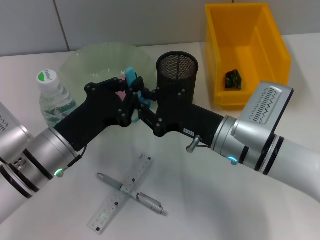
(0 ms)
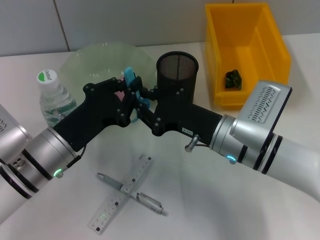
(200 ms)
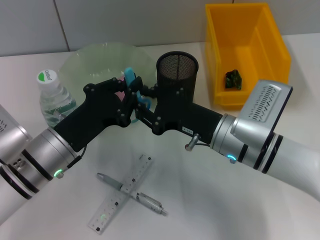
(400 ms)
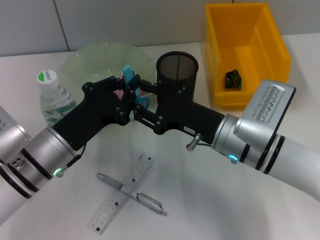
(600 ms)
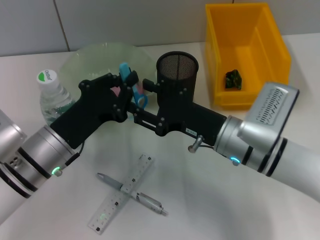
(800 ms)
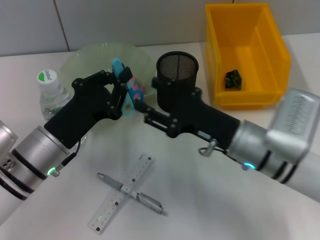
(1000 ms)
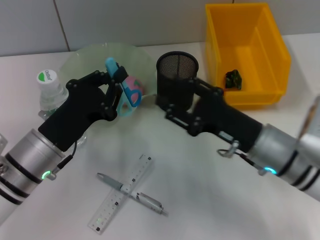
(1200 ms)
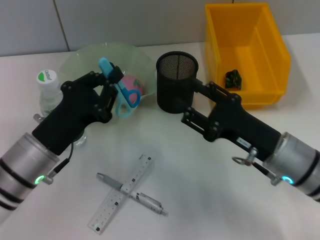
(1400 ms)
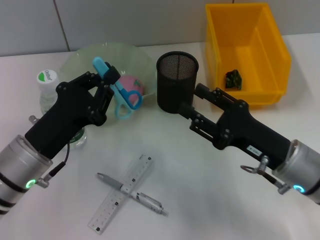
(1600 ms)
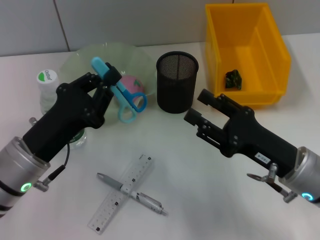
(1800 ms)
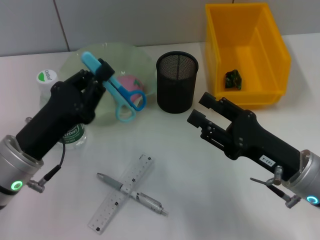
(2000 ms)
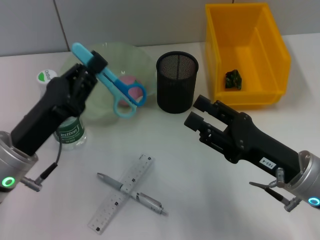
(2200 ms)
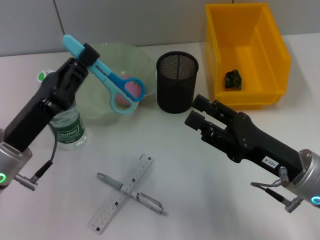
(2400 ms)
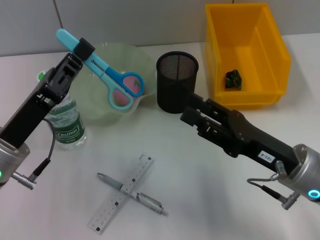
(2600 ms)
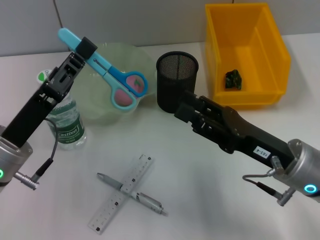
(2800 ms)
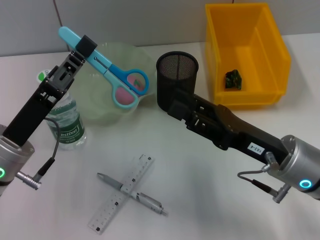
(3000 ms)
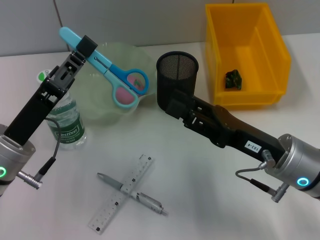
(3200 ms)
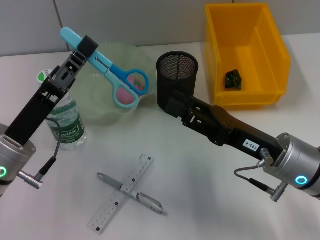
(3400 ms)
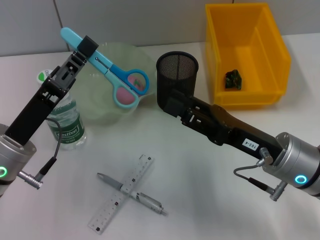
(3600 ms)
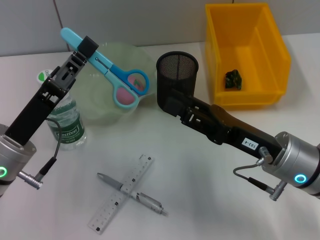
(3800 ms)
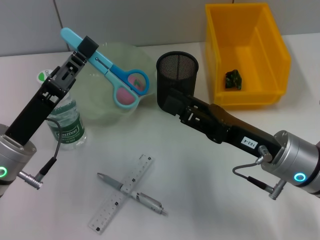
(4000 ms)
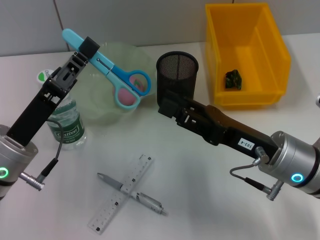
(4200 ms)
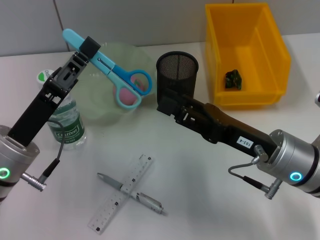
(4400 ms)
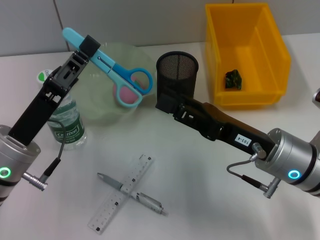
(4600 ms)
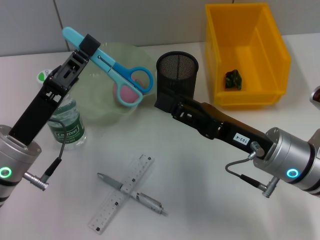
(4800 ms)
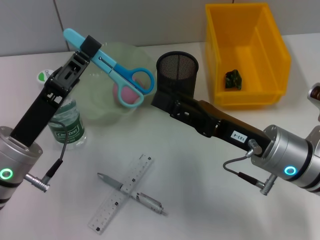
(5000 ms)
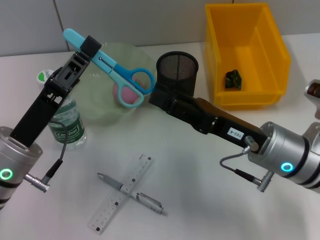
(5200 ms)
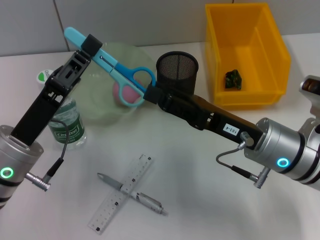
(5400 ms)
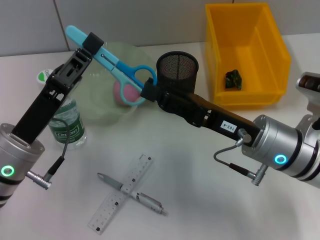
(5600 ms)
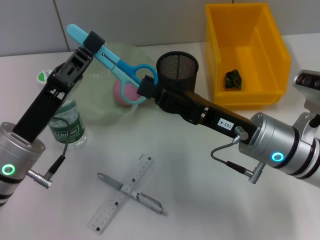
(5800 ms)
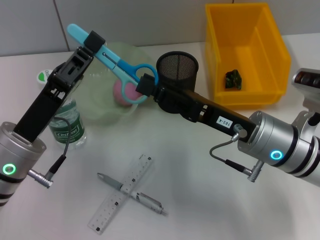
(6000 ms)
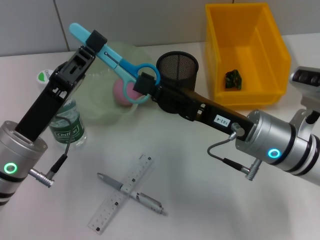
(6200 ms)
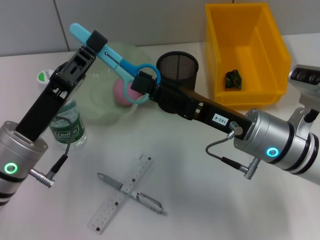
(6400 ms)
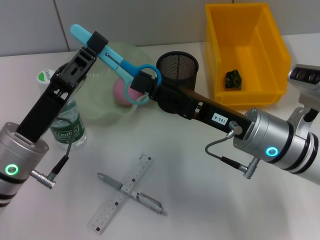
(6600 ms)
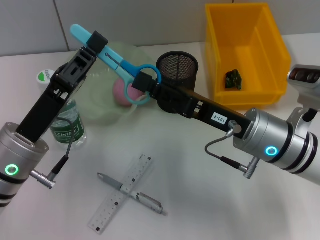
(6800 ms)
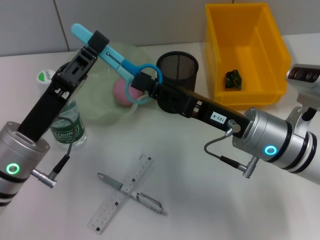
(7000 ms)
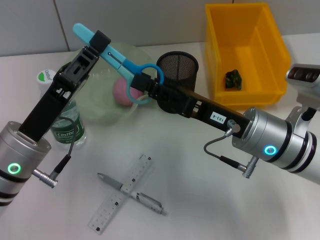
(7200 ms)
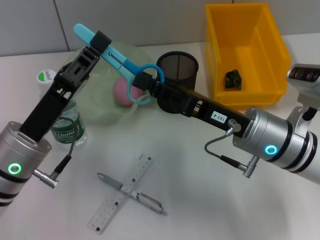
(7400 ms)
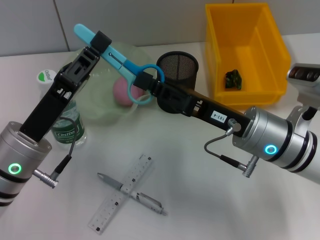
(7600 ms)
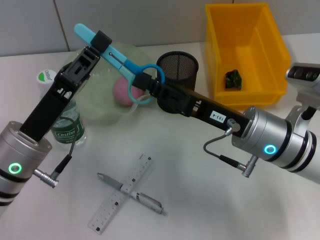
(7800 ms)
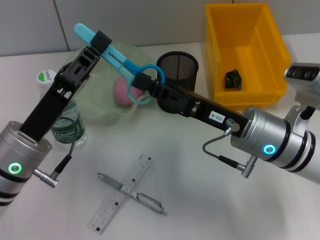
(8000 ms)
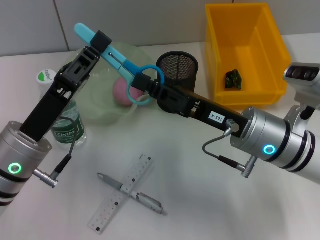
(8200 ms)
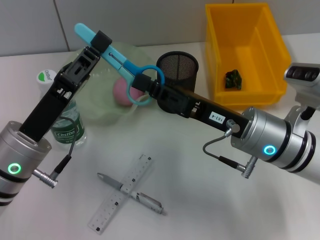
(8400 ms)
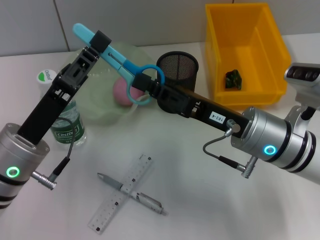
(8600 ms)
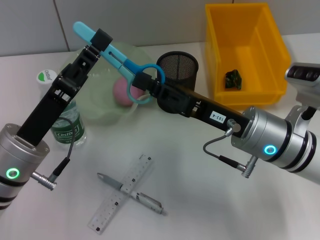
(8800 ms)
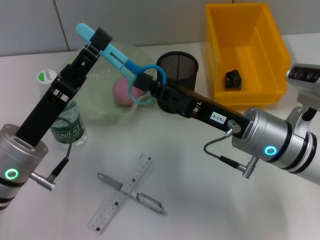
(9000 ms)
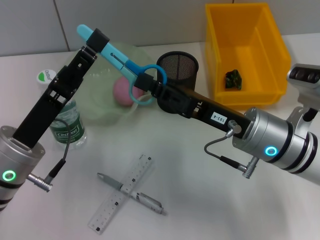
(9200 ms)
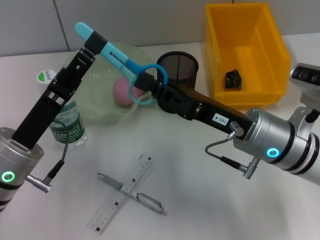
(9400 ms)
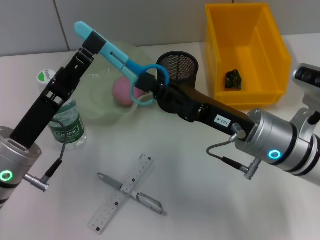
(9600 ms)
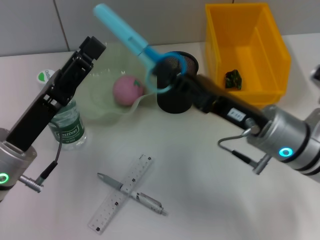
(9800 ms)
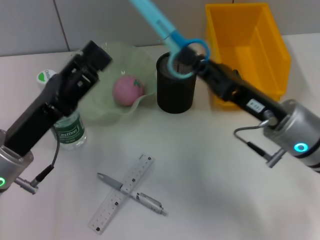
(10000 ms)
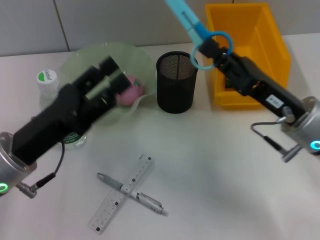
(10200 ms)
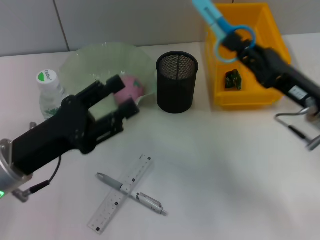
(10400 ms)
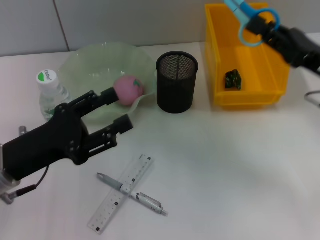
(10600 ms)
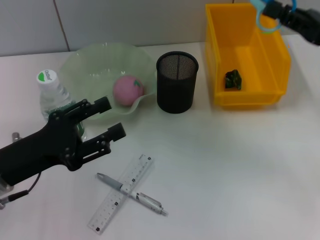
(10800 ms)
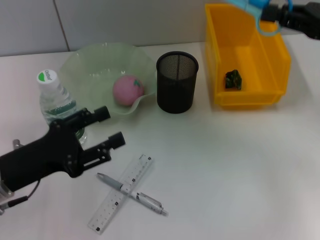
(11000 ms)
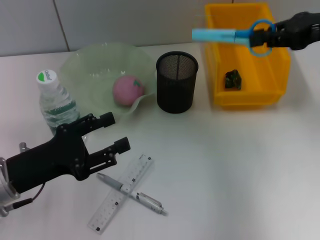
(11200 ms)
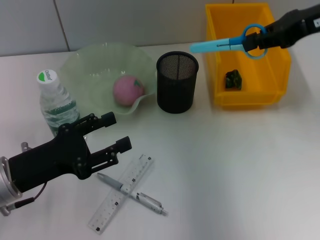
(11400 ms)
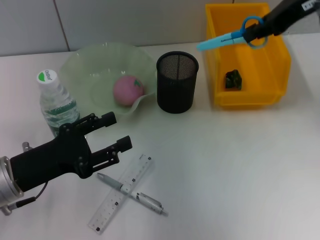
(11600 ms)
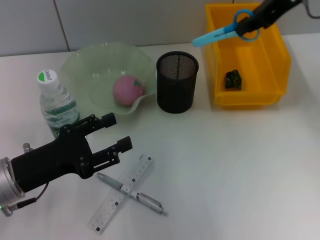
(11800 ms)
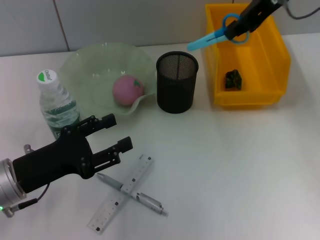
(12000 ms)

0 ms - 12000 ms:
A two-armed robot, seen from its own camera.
Step, 1000 ms - 9600 ms: Pass the blue scissors from the left hand to the right hand.
0 ms - 1600 ms: The right gripper moves to the right and backward, roughly 10 cm, and opens its fingers.
3000 ms - 4400 ms: Neither gripper changes place.
4400 ms - 6000 ms: The grippers make only small movements.
6000 ms - 7600 ms: The right gripper closes its fingers.
7600 ms - 9000 ms: There are only small adjustments of the grippers.
9000 ms - 10400 ms: The right gripper heads to the right, covering about 10 cm. Meanwhile the left gripper opens its fingers.
10400 ms - 12000 ms: The right gripper travels upward and forward by some 25 cm.

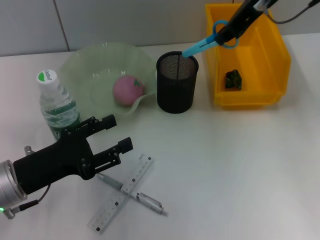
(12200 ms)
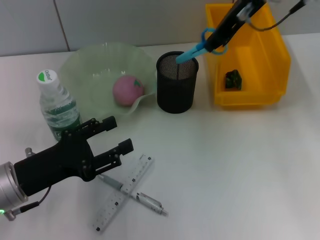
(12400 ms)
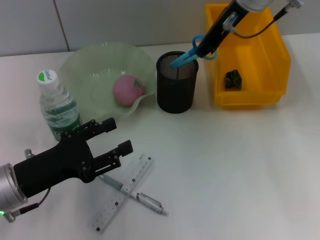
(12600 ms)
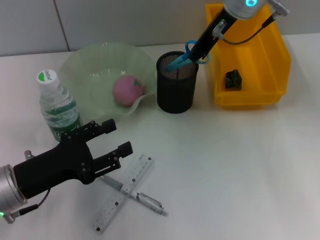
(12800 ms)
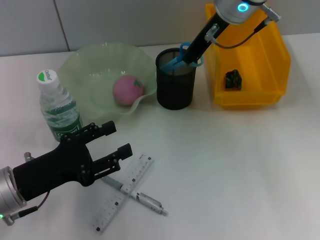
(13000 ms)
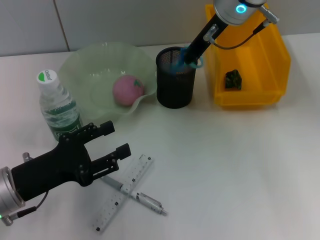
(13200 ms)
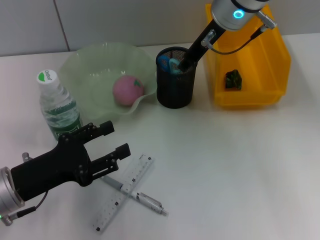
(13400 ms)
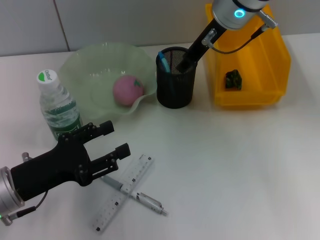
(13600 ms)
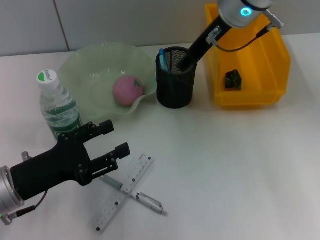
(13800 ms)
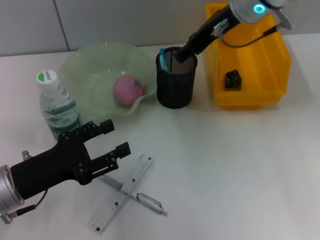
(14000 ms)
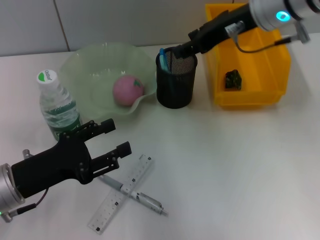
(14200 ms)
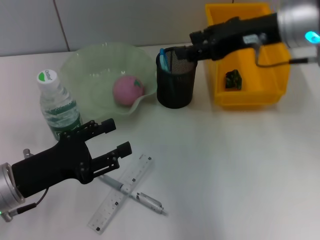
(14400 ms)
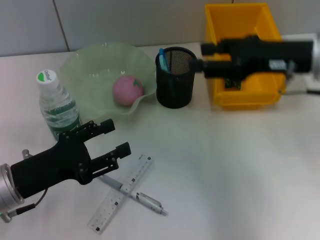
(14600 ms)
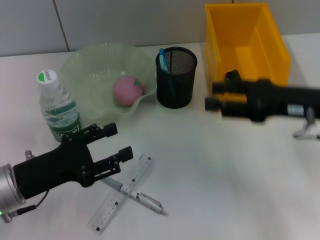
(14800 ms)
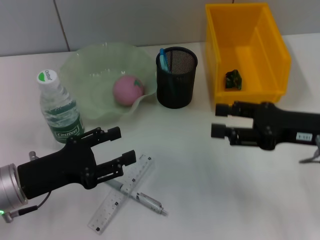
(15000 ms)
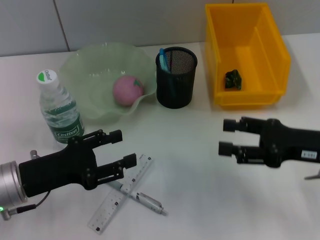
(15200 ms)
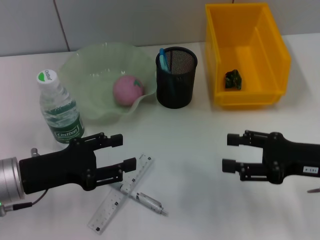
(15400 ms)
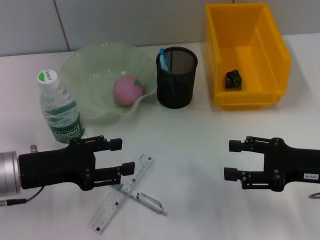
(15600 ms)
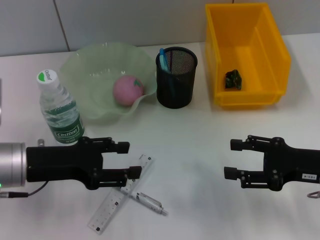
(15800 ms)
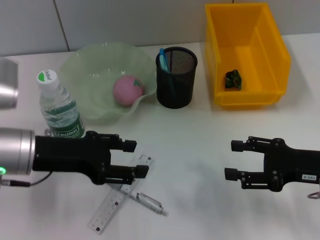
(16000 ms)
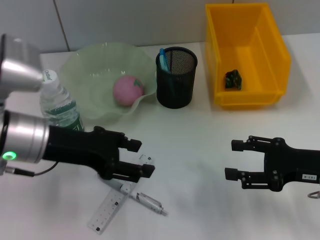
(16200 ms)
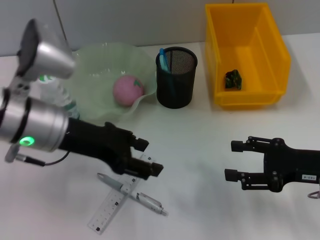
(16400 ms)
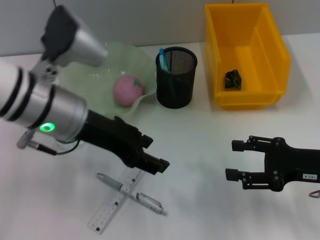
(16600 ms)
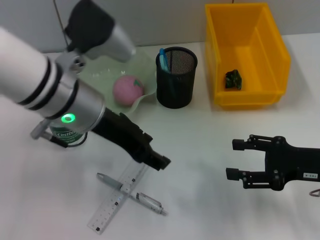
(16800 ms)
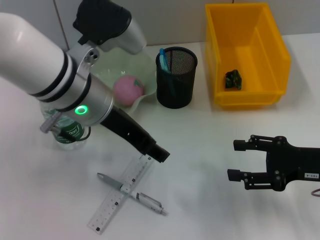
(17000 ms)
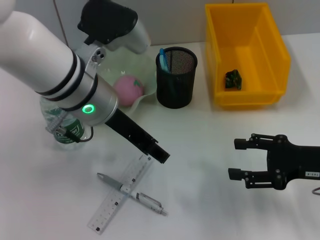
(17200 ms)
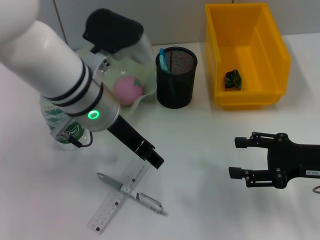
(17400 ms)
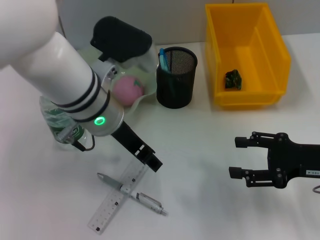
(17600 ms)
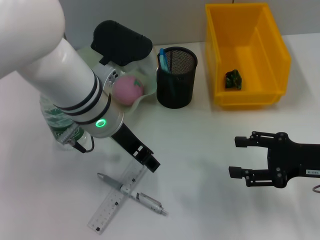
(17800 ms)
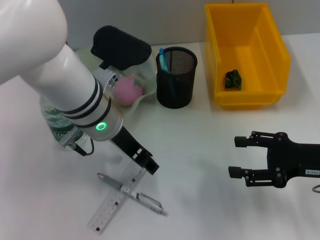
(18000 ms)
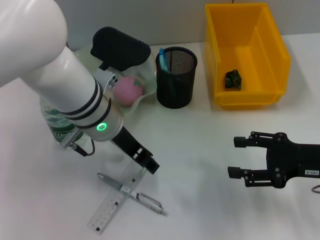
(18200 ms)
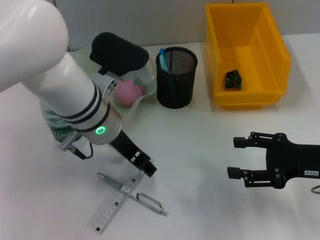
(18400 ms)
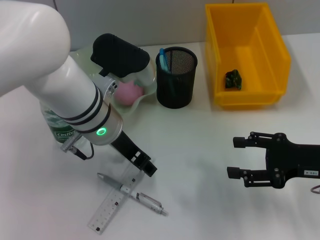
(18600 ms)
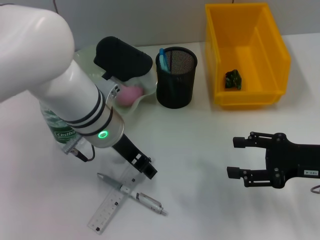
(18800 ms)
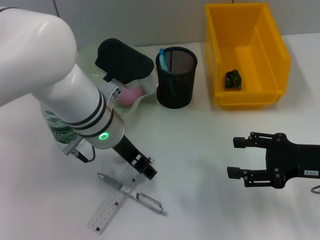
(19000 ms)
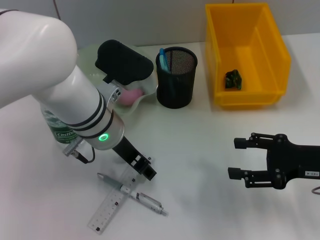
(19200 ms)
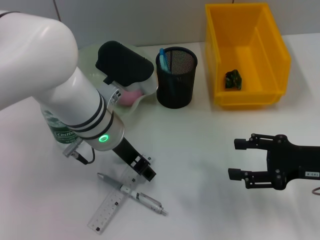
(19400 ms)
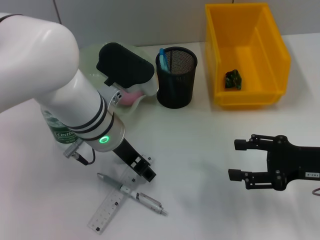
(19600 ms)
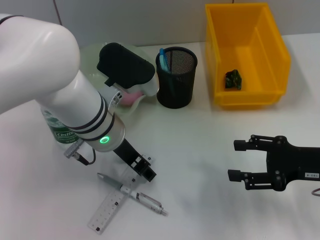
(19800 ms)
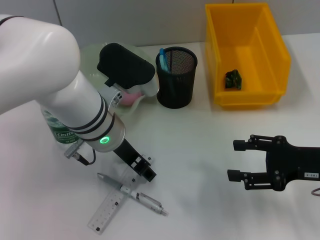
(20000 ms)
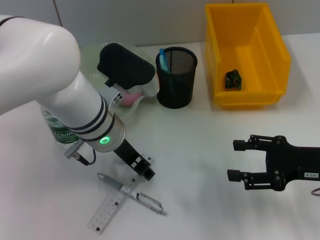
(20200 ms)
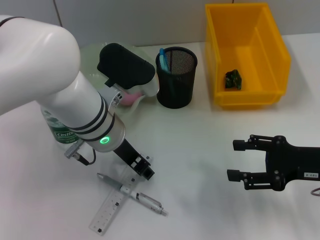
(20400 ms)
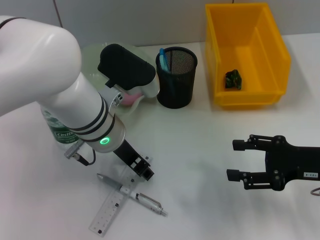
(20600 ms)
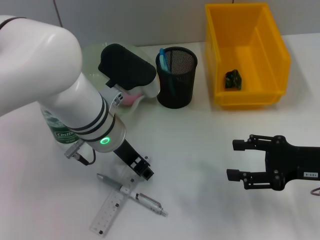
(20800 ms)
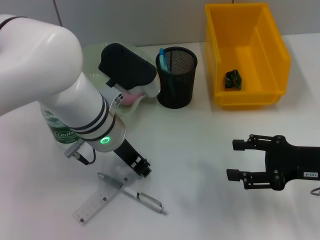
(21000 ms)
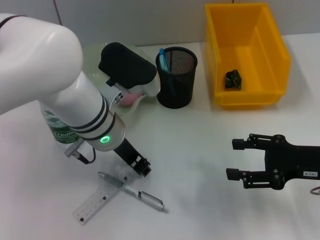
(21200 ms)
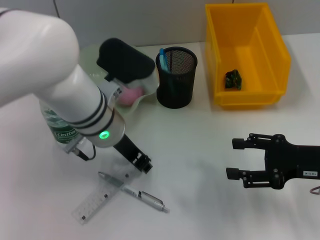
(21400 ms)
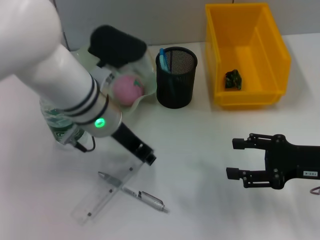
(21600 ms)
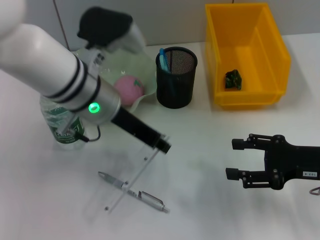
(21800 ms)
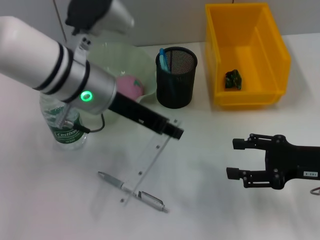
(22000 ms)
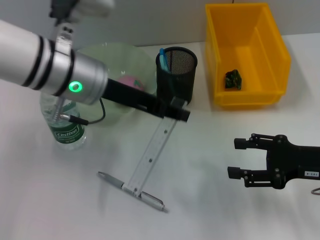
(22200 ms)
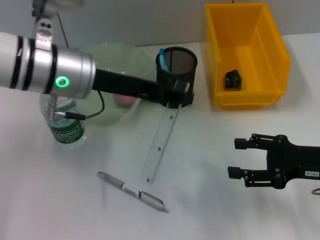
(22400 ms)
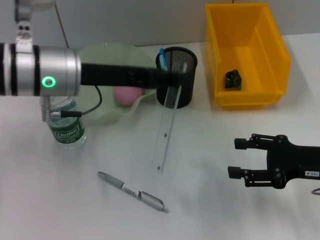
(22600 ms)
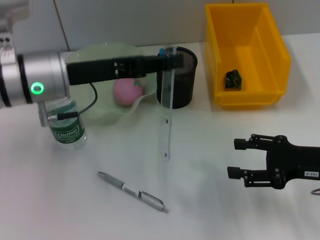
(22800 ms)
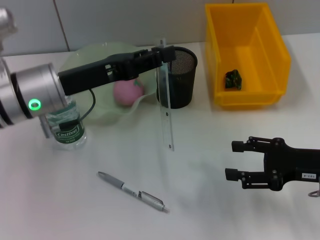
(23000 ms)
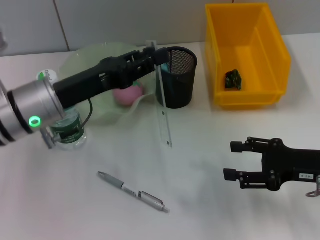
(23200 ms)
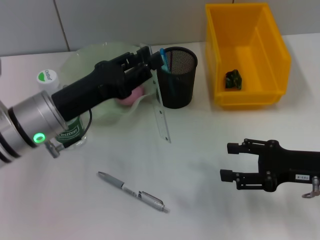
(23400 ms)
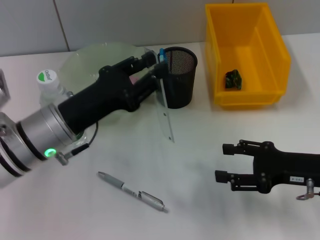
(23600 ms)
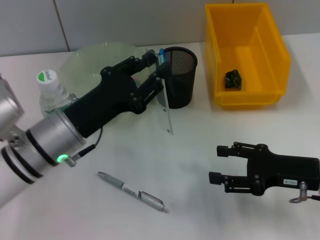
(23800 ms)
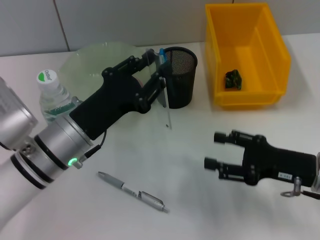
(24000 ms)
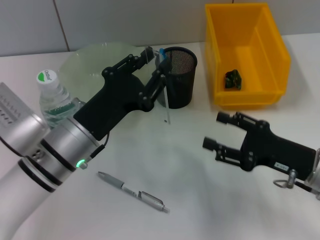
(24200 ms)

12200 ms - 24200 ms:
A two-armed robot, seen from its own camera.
Step, 13800 ms - 21000 ms: Grab the ruler with the left hand.
12200 ms - 13800 ms: The right gripper is displaced to the left by about 5 cm, and opens up.
13800 ms - 15200 ms: The right gripper moves backward, to the right and downward, approximately 30 cm.
15200 ms - 16600 ms: The left gripper is displaced upward, to the right and forward by approximately 15 cm.
16600 ms - 18200 ms: The left gripper shifts approximately 5 cm to the right.
18200 ms - 19800 ms: There are only small adjustments of the grippers.
19800 ms - 21200 ms: The left gripper closes up.
21200 ms - 22600 ms: The left gripper is displaced to the left and upward by approximately 10 cm.
22600 ms - 24200 ms: The left gripper goes some 15 cm downward and backward, while the right gripper moves about 5 cm.
